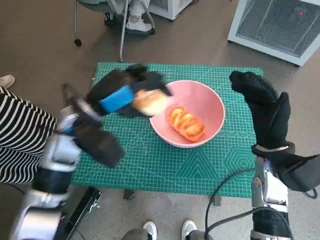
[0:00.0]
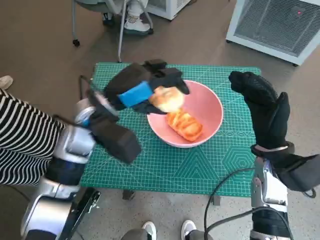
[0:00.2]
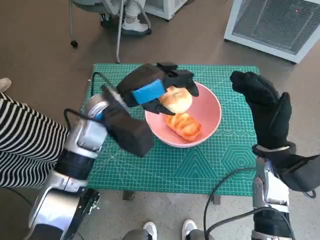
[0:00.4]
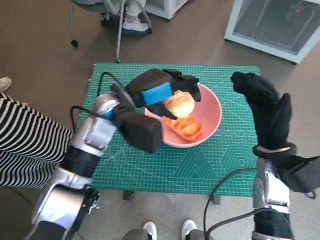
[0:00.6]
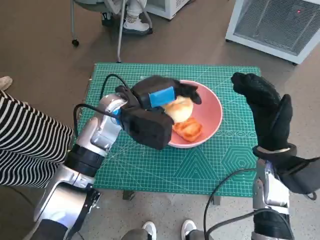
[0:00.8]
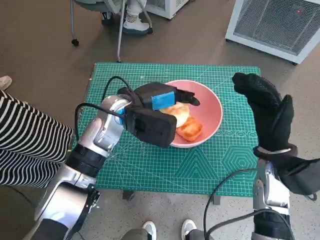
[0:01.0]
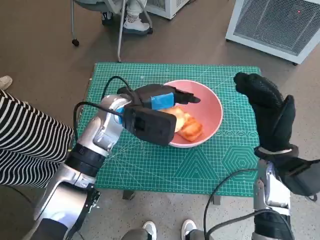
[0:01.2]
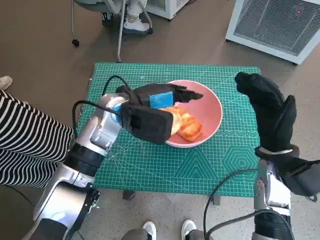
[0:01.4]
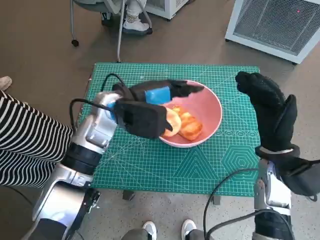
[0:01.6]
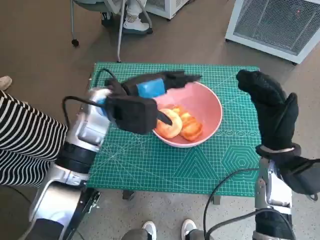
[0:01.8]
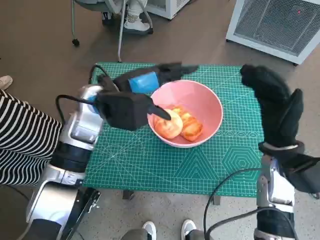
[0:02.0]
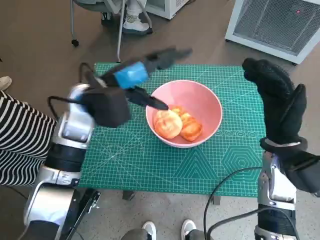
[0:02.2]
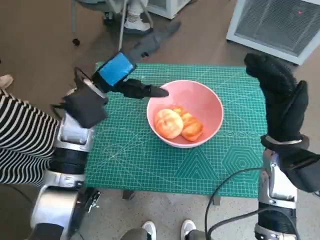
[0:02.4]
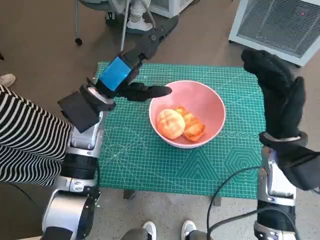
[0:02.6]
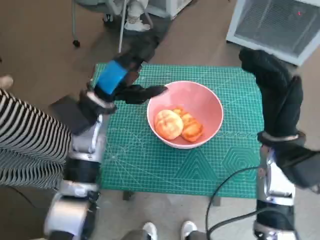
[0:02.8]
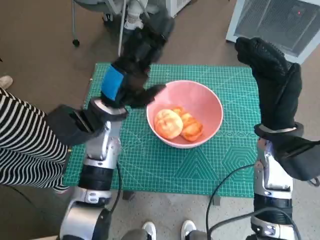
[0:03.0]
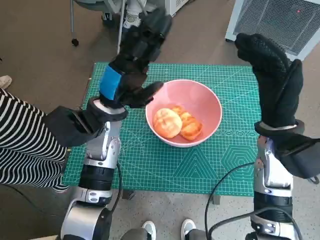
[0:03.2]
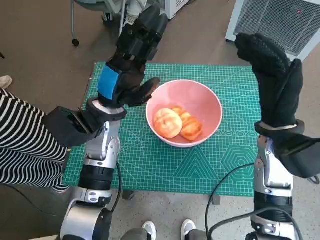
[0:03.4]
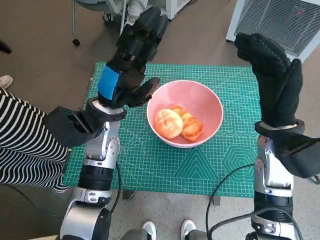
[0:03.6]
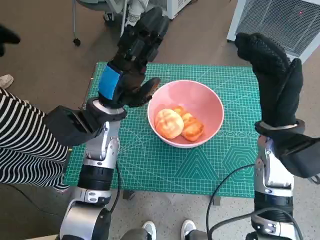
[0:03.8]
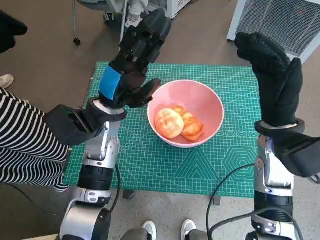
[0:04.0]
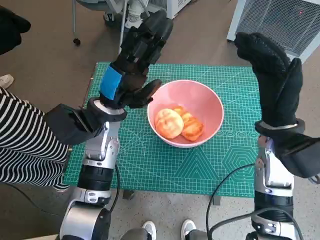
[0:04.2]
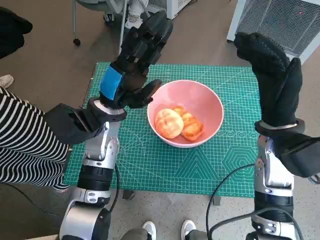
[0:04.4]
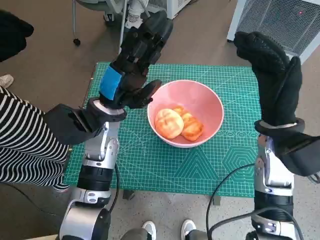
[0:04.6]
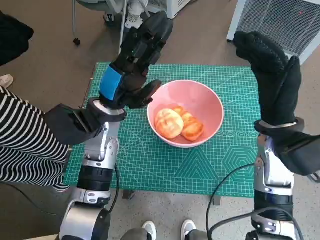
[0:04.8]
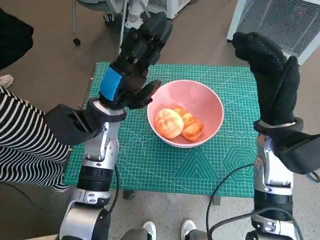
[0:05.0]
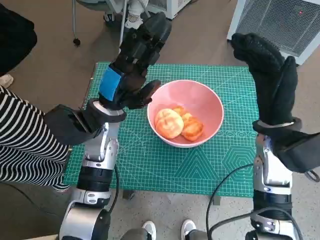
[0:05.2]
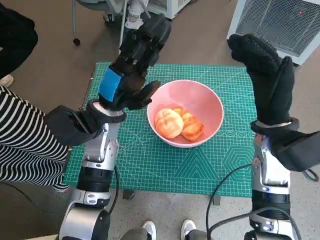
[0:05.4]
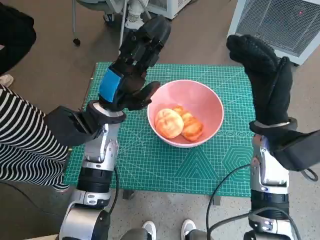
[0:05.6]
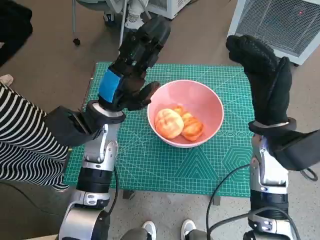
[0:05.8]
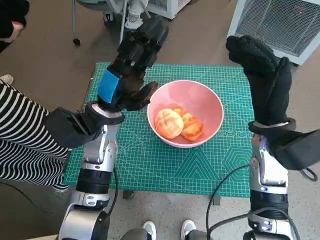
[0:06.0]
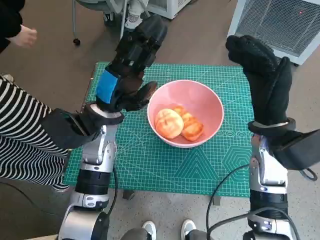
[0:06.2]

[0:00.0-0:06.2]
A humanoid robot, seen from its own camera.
Task of the whole recording: Push the bowl into the center of the table and put the bread into the bowl.
Step, 0:00.0 to 0:02.2: Place the round bread in pink bowl with left hand.
0:00.0 to 0:01.6: The left hand heads to the right, covering about 5 cm.
0:01.6 to 0:03.2: The right hand shifts about 5 cm upward.
0:03.2 to 0:06.2: Both hands stay about where they are.

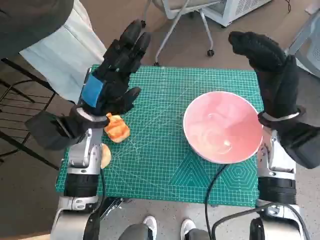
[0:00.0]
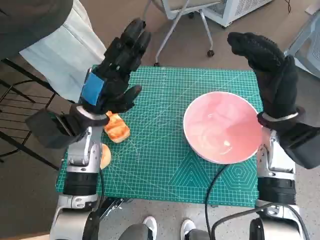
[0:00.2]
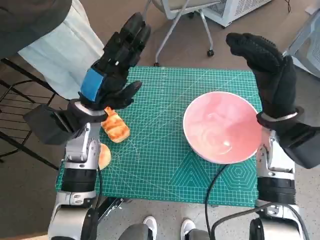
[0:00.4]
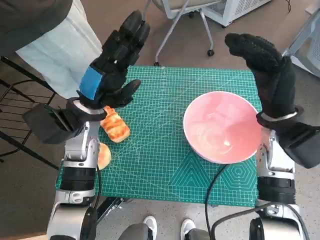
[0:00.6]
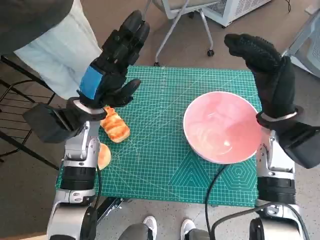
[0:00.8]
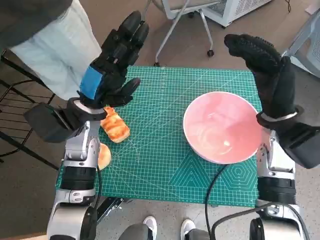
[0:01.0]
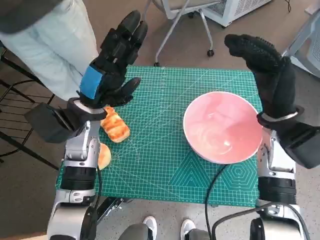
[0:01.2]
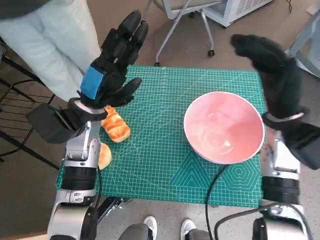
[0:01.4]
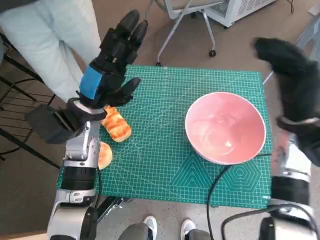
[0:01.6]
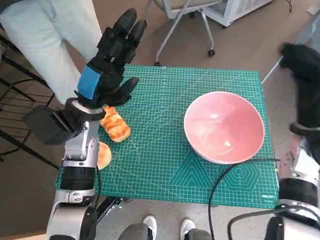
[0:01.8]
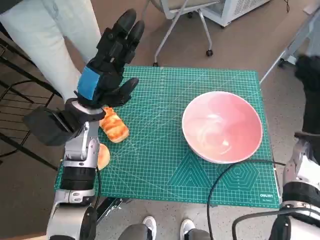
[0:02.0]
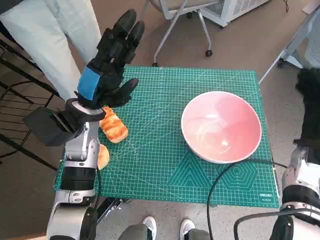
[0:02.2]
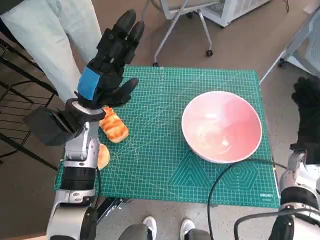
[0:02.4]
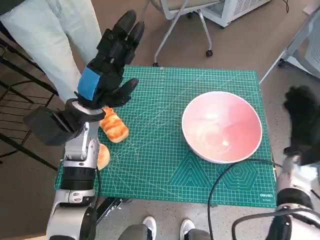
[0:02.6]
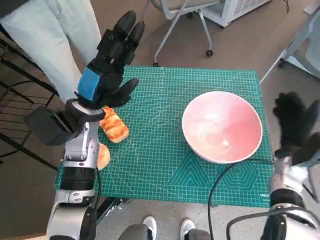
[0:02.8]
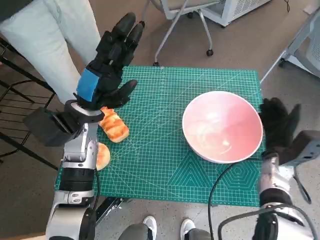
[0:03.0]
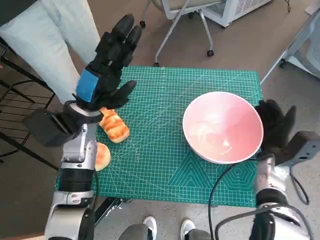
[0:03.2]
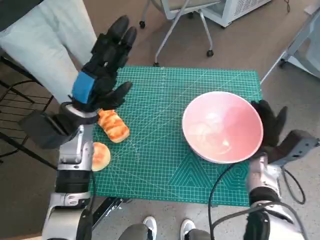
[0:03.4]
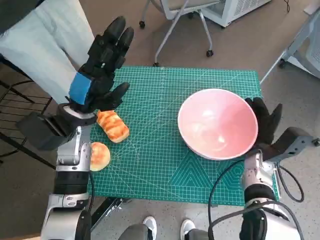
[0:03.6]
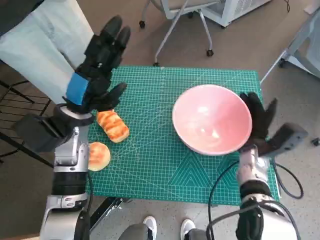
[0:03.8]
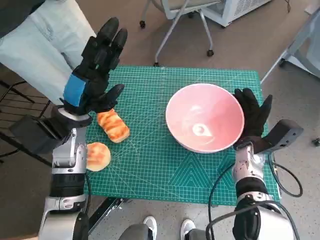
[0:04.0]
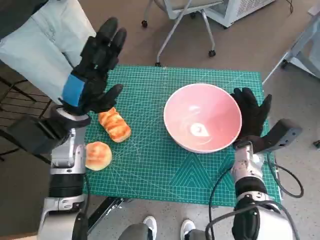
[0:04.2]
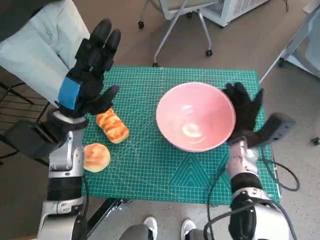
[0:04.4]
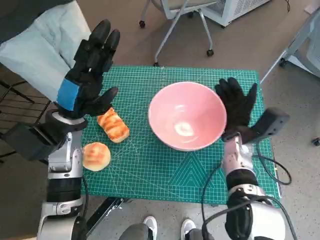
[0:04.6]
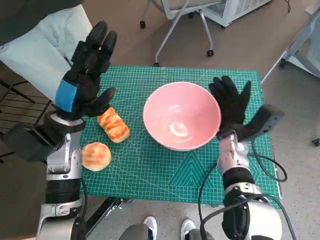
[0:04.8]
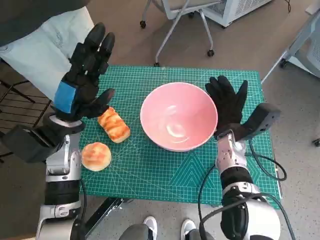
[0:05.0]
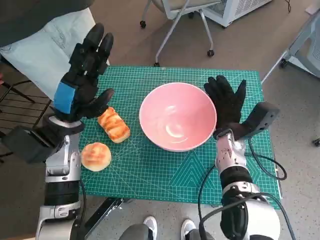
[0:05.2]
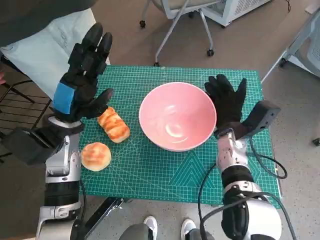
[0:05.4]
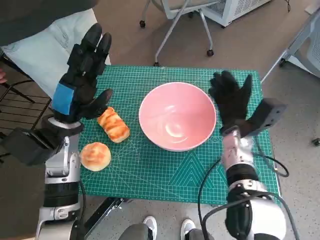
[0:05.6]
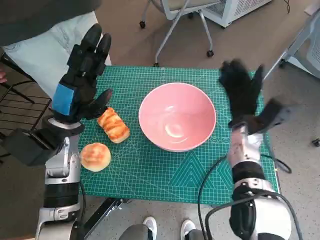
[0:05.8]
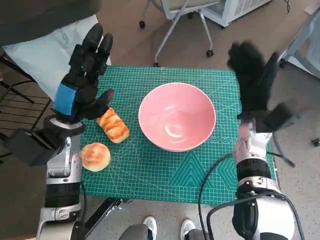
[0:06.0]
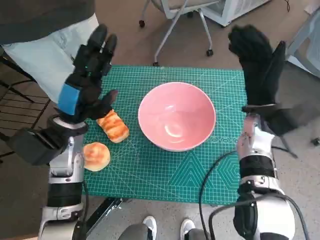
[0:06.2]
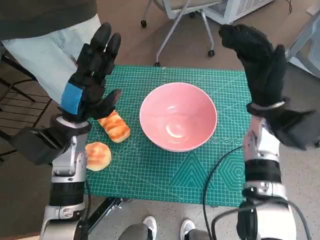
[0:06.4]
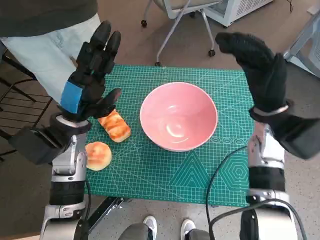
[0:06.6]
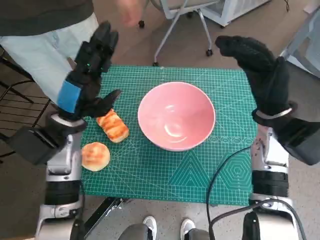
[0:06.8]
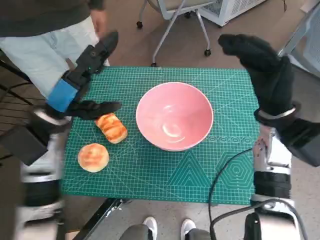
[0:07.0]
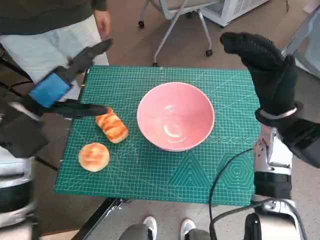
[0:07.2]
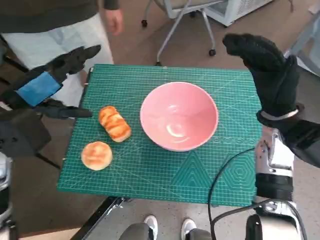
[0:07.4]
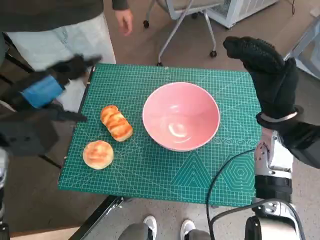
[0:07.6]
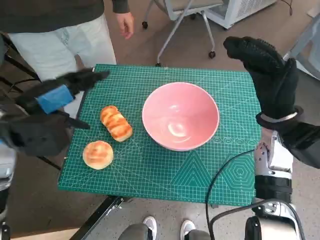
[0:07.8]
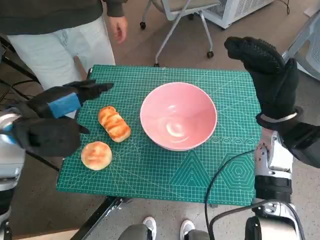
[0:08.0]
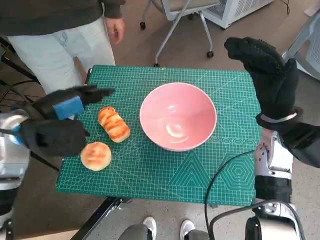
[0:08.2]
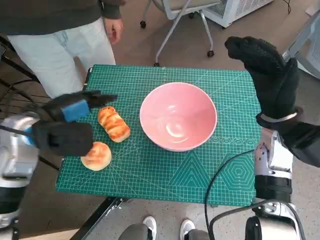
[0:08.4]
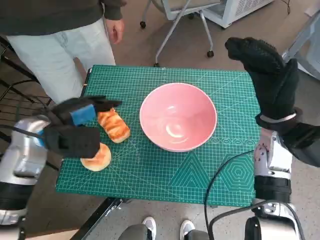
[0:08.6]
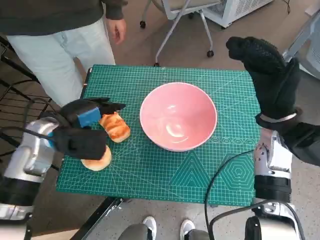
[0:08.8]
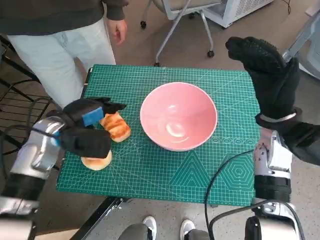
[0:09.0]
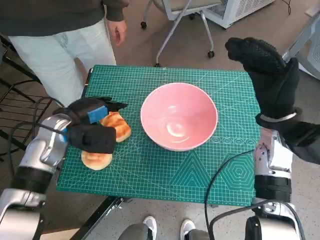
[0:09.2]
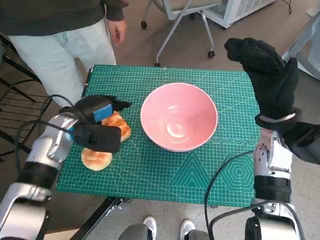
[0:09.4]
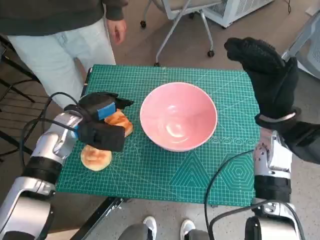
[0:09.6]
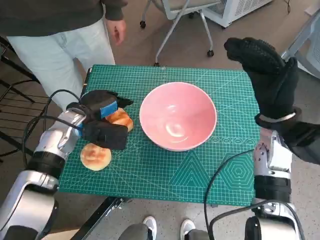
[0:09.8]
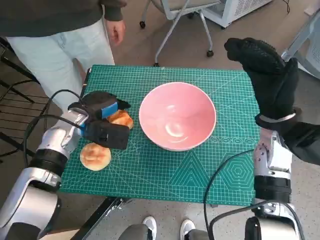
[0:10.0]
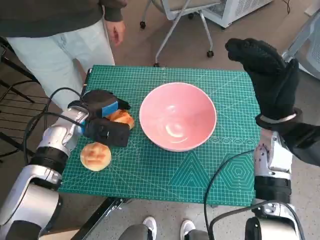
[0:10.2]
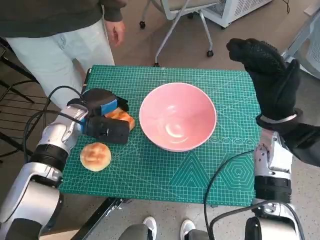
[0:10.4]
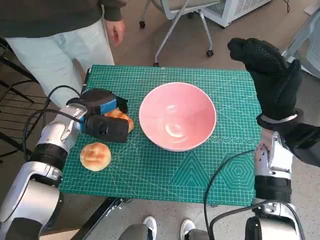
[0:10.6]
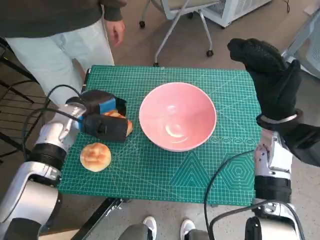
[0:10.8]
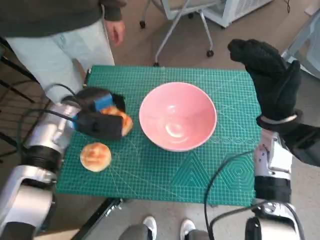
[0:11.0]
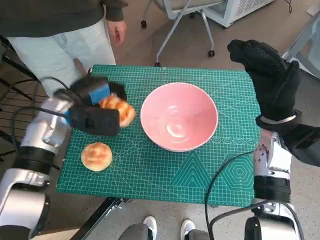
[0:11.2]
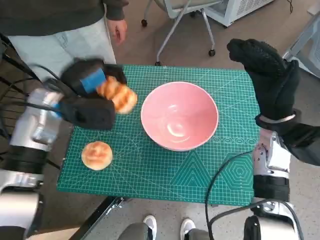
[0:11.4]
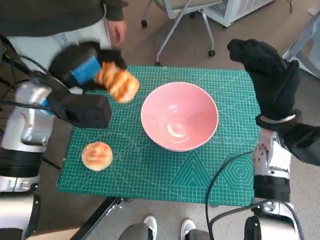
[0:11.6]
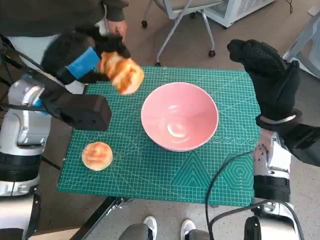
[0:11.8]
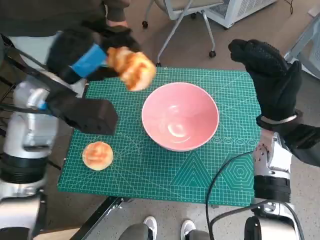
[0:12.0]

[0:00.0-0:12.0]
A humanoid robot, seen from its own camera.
Task of the whole recording: Push the bowl into the center of the table and put the bread into the bowl.
Step, 0:00.0 to 0:05.6: Move the pink bowl to the center of table with right hand.
Step, 0:05.8 to 0:10.6: Grasp the long bread with left hand.
0:01.6 to 0:03.0: The right hand is displaced downward by roughly 15 cm.
0:03.0 to 0:04.4: The right hand moves to the left, approximately 10 cm.
0:04.4 to 0:06.0: The right hand moves upward, some 5 cm.
0:06.0 to 0:07.6: The right hand goes roughly 5 cm upward. The left hand moves upward, roughly 10 cm.
0:07.6 to 0:09.0: The left hand goes approximately 10 cm downward.
0:09.0 to 0:10.4: The left hand ends up roughly 5 cm from where it was.
0:10.4 to 0:12.0: The left hand shifts roughly 15 cm upward.

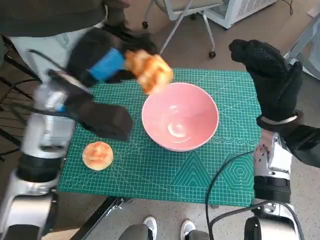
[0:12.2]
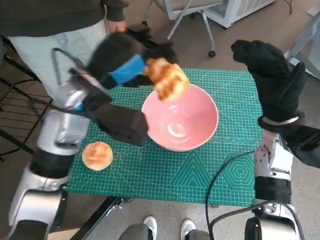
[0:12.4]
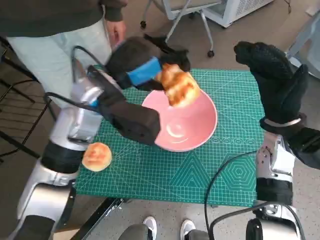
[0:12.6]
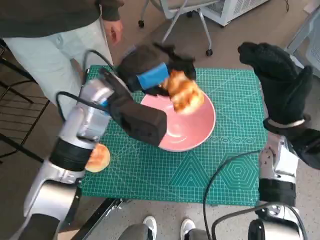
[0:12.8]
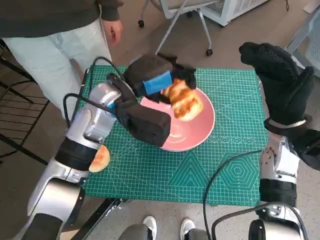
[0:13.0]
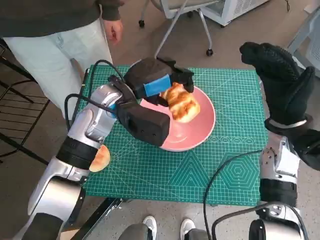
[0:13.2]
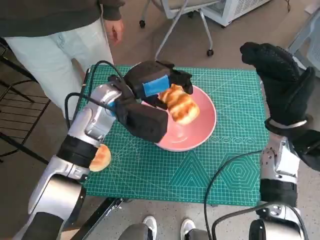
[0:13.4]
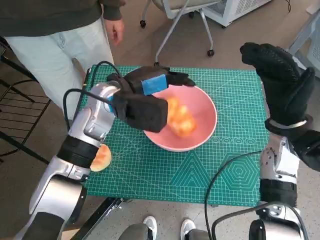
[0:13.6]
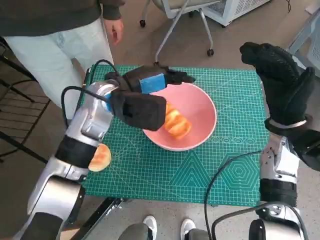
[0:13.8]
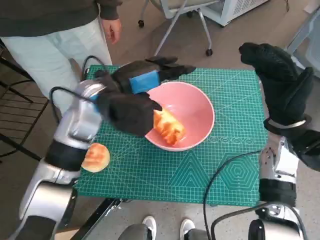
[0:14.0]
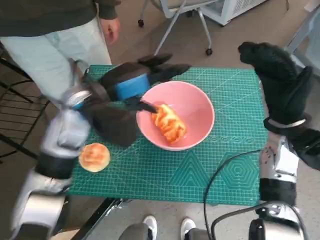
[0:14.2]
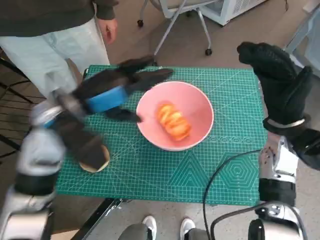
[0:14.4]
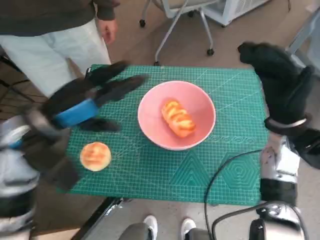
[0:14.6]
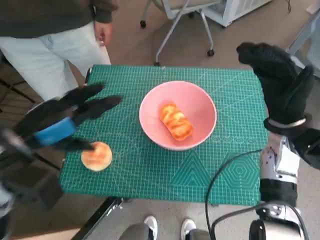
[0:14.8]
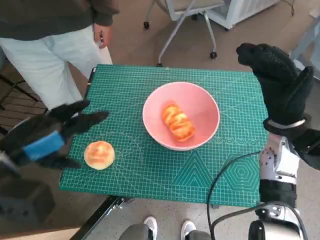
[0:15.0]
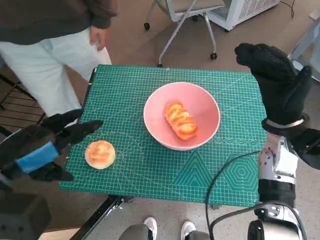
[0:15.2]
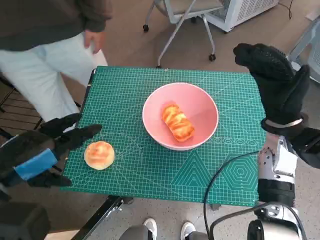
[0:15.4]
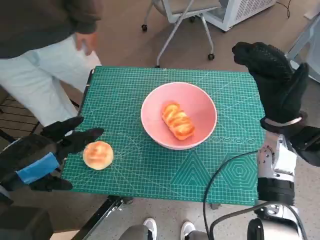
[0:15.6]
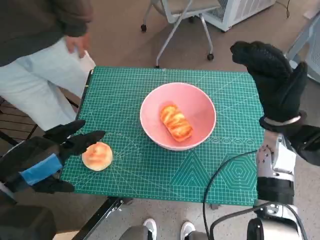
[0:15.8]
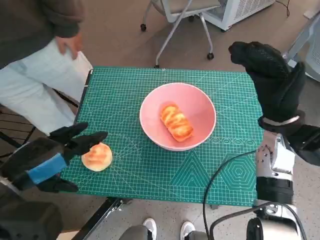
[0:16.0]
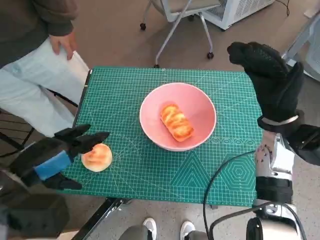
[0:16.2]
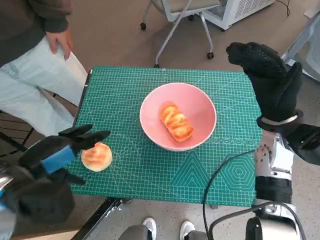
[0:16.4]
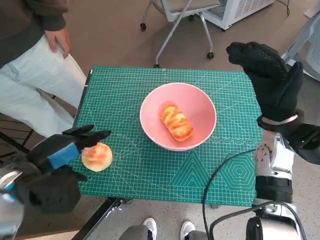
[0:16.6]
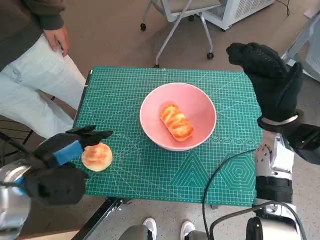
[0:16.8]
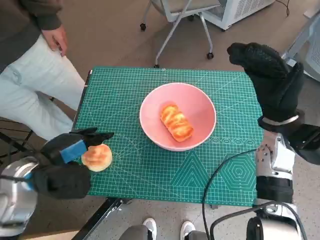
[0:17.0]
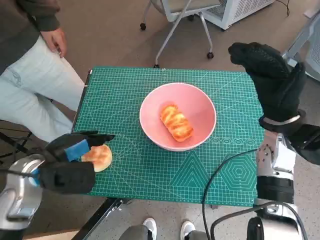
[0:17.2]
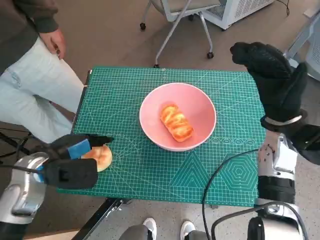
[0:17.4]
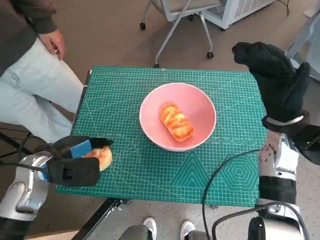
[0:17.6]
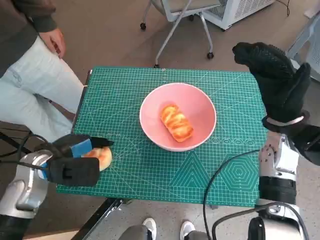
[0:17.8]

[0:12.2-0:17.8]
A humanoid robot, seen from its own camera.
Task of the whole recording: Push the bowl into the center of the table and put the bread into the bowl.
Step, 0:12.2 to 0:13.8: Place the long bread in pink bowl with left hand.
0:12.2 to 0:13.6: The left hand travels to the right and downward by roughly 5 cm.
0:13.6 to 0:15.0: The left hand is displaced backward and to the left by approximately 20 cm.
0:16.4 to 0:17.8: The left hand travels downward and forward by roughly 10 cm.
